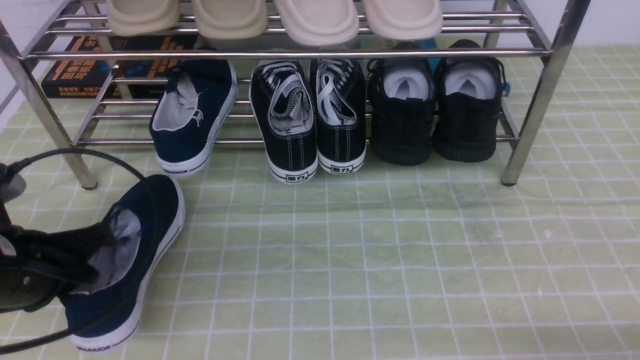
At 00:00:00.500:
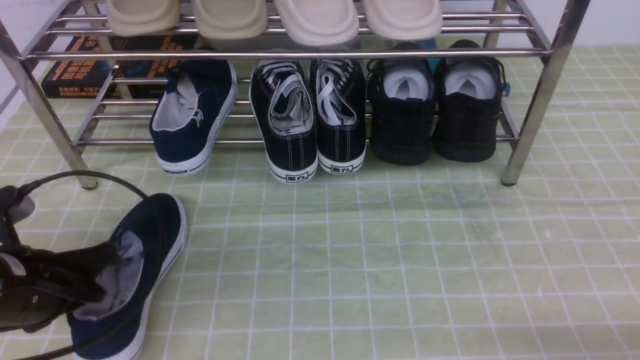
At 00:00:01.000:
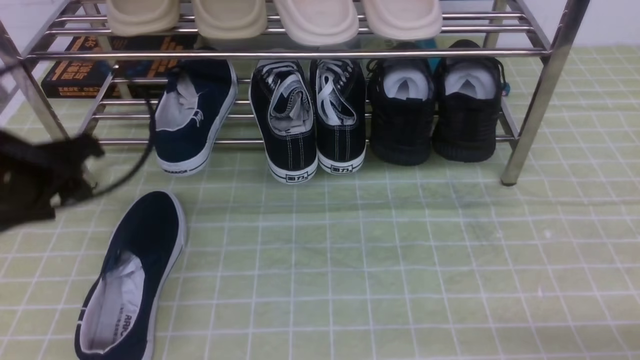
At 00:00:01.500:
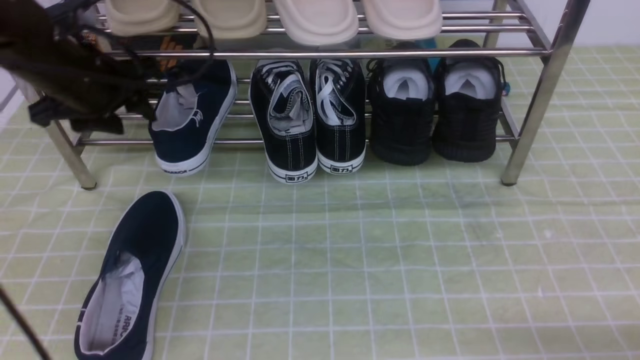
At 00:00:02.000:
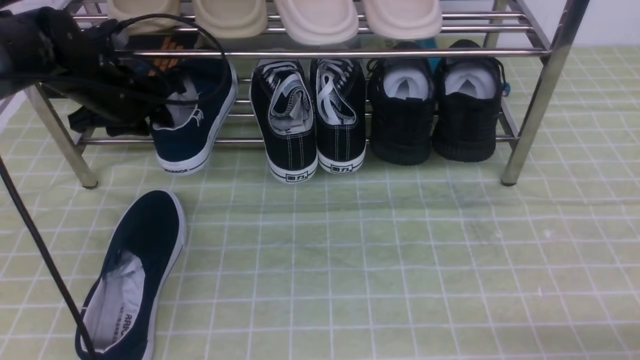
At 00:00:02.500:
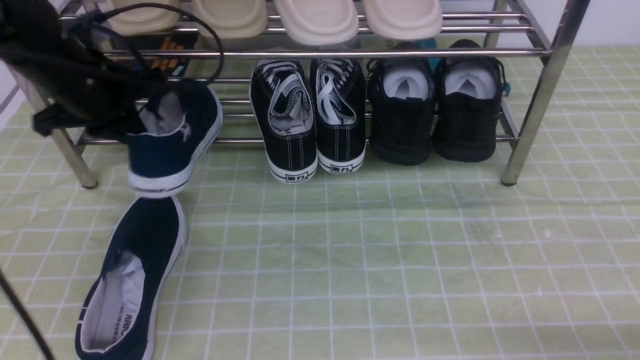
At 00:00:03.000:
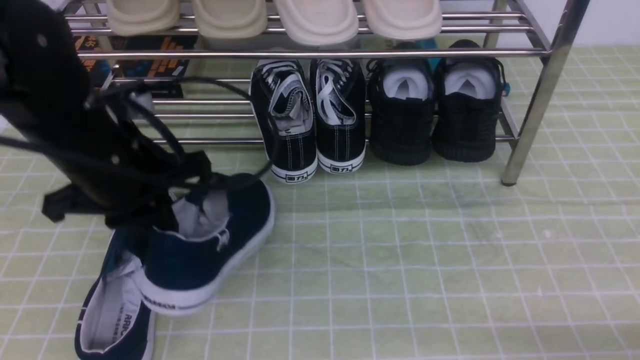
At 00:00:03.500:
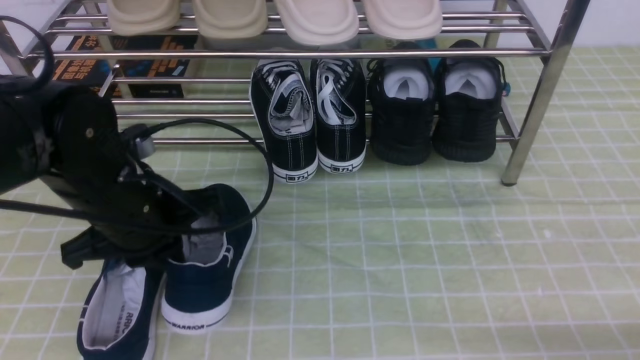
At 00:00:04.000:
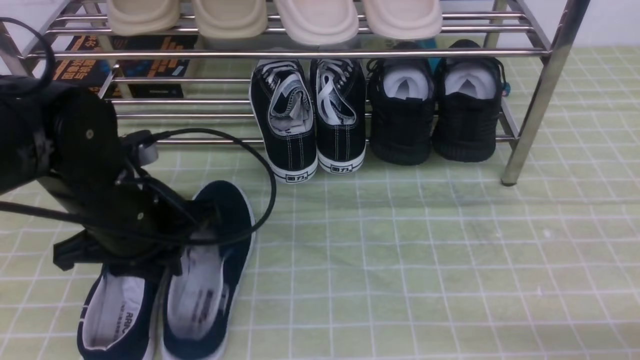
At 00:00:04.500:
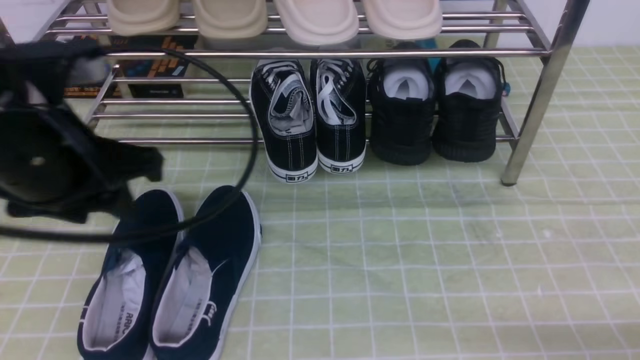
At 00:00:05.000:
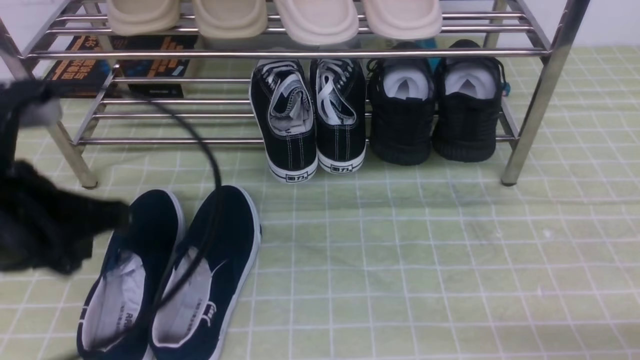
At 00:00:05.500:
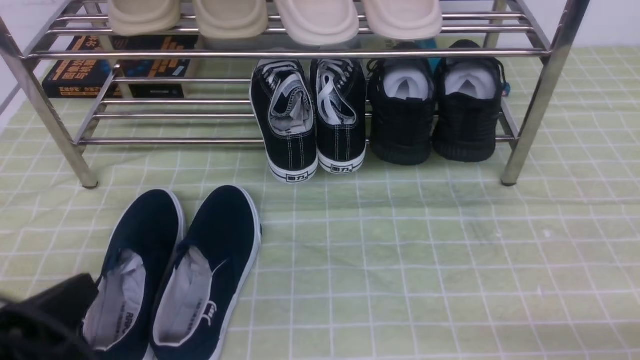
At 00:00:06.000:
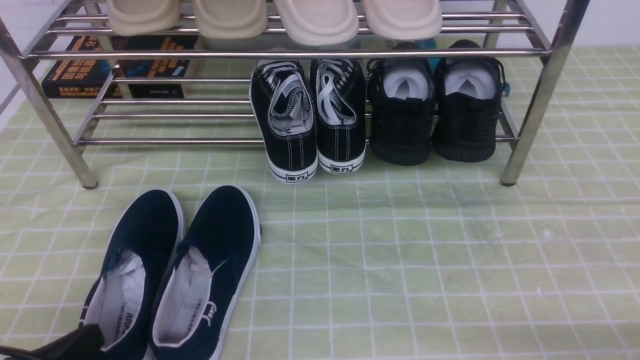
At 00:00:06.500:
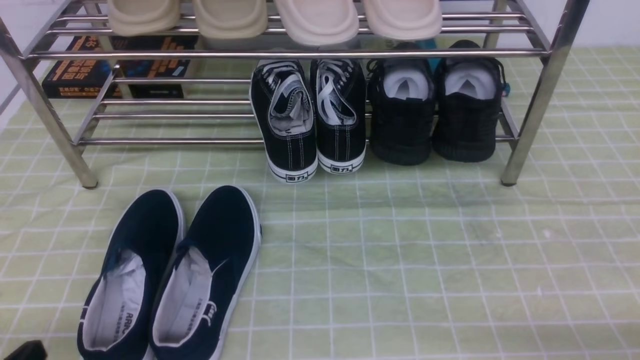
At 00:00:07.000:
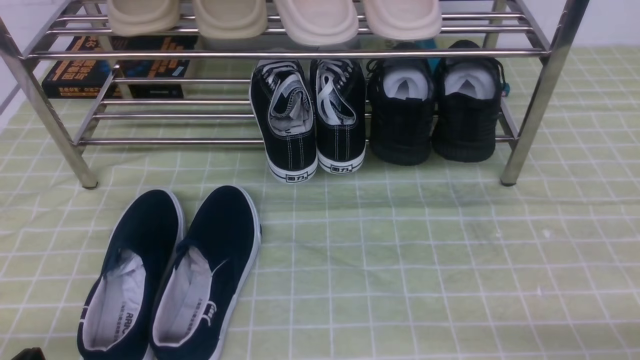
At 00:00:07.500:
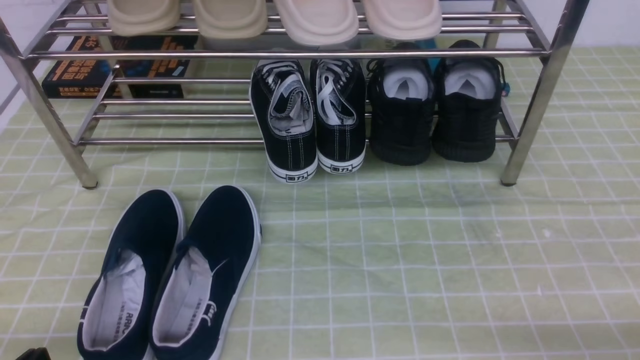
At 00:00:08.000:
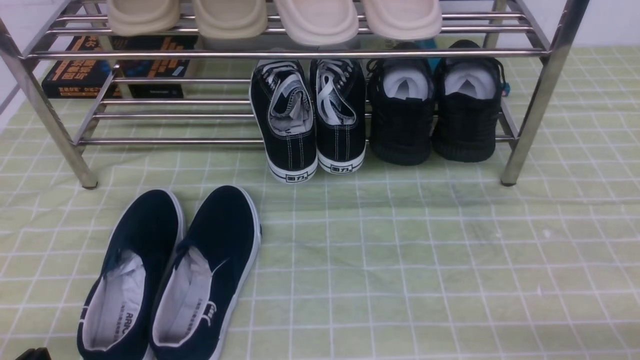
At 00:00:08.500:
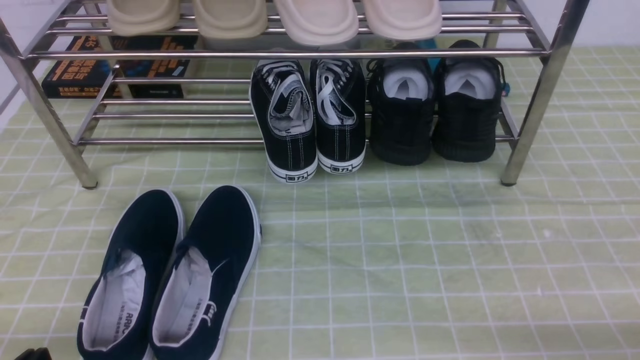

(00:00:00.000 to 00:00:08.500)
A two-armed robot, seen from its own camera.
Step, 00:00:01.500 - 00:00:02.000: use the left arm to clamp a shoe on the left side of the shoe rack.
Step, 00:00:02.500 - 00:00:04.000: Use your left arm to remove the clamped shoe from the shoe rack and put it down.
00:00:00.000 - 00:00:02.000: The left gripper travels forward by roughly 25 cm, and opens up.
00:00:02.000 - 00:00:04.000: The left gripper goes some 20 cm backward, and closes, then reopens.
00:00:04.000 - 00:00:06.500: The left gripper travels backward, to the left and downward by about 25 cm, and closes its fingers.
00:00:06.500 - 00:00:08.500: Both grippers stay put.
